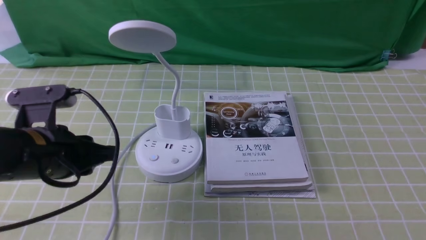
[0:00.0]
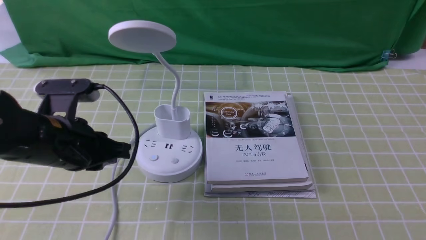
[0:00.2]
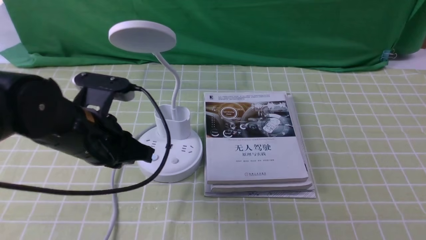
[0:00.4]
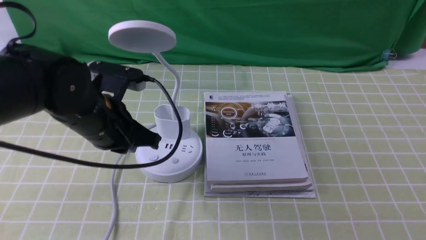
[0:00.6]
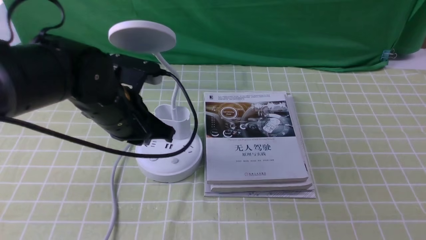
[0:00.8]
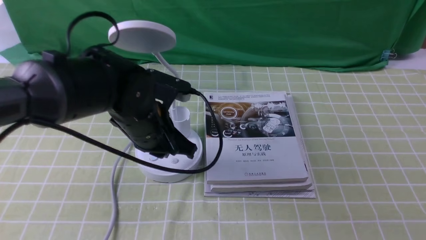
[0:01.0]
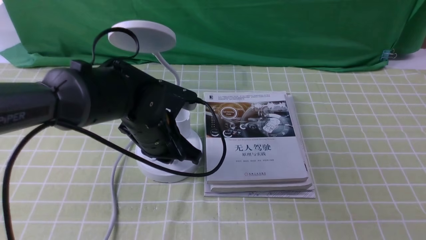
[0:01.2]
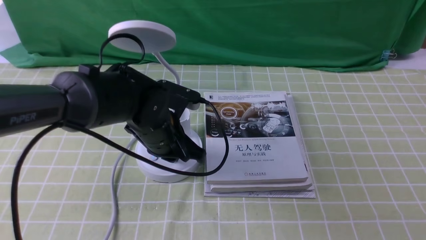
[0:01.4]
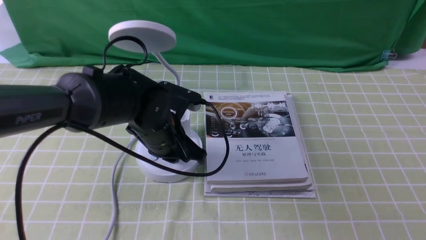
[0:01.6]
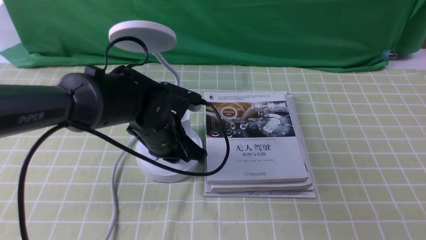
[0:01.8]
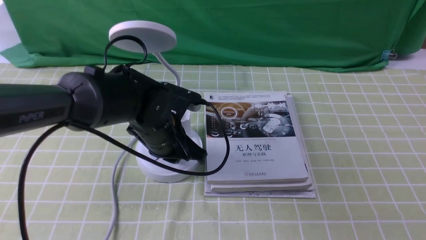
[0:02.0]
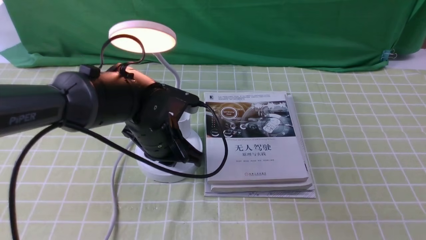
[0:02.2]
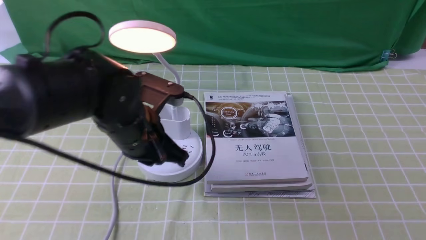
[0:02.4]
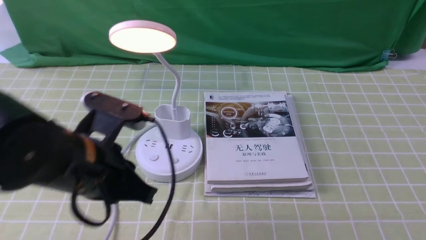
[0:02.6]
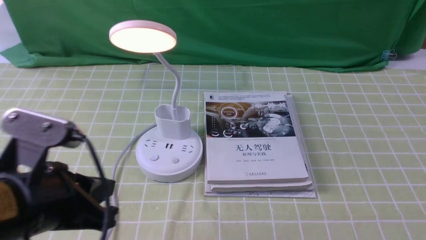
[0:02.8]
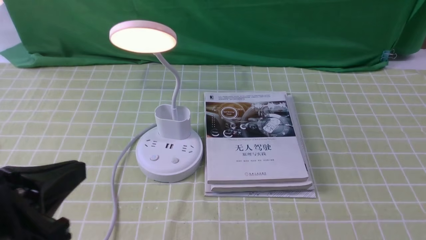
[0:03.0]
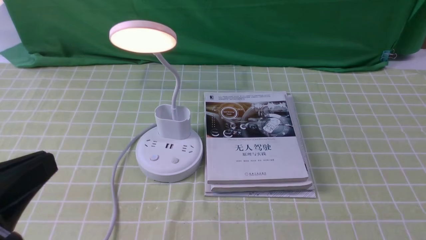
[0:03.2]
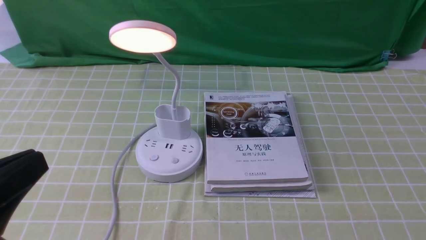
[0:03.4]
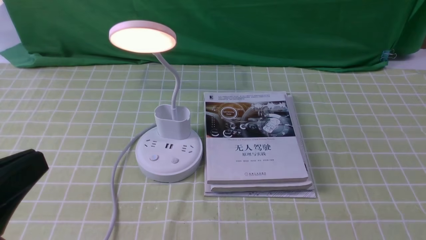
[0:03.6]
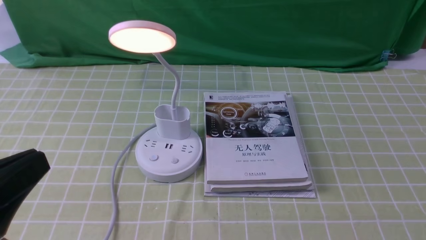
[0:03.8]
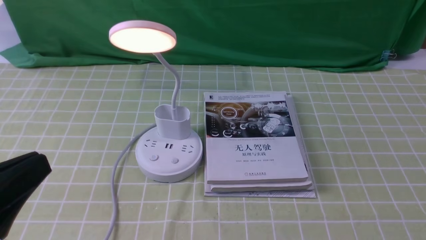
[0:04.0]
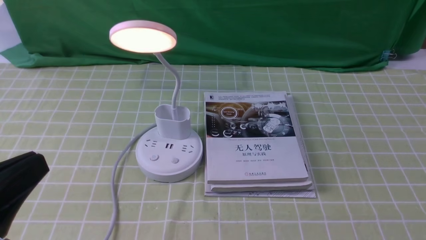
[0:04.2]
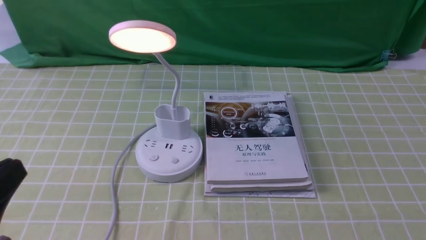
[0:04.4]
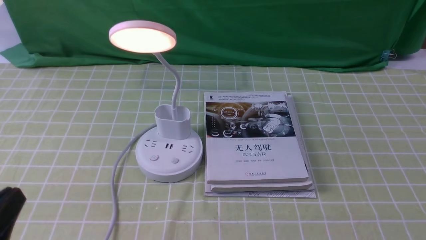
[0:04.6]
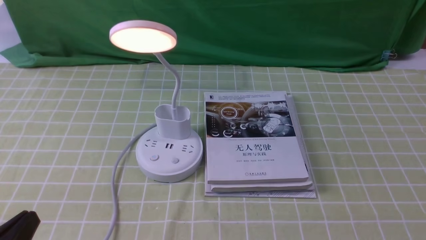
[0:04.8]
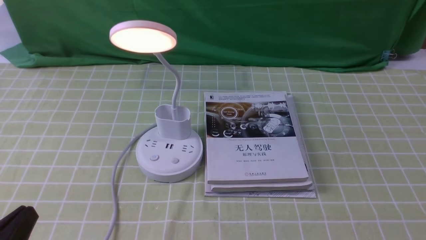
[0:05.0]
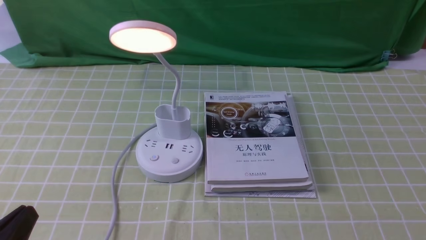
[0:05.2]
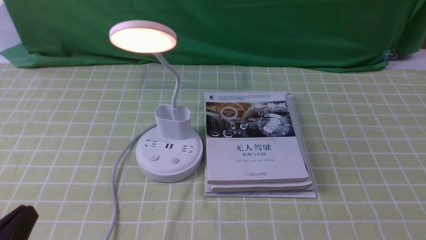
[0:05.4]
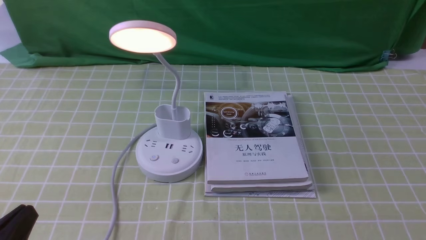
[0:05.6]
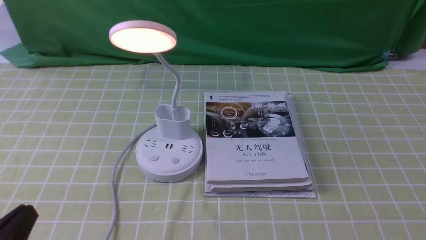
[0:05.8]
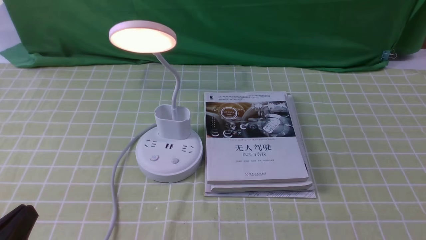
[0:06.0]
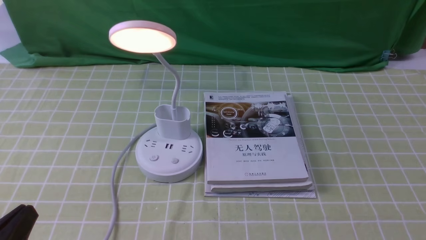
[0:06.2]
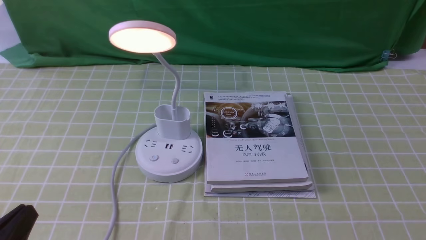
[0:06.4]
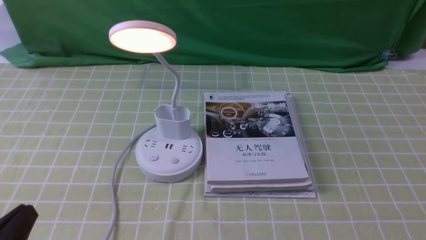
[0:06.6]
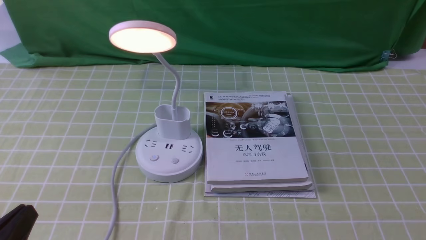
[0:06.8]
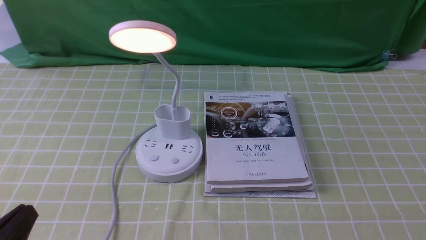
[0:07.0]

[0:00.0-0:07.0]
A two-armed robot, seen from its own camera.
Step, 0:00.0 to 0:02.4: use the left arm to press the button switch on the lamp holder.
0:00.0 to 0:01.4: The left gripper is displaced to the right, forward and downward by approximately 15 cm, and closes up.
0:01.4 to 0:02.8: The left gripper travels backward, to the left and upward by some 25 cm.
0:02.8 to 0:04.2: The left gripper travels backward by about 10 cm.
0:04.2 to 0:05.6: The left gripper shifts roughly 10 cm downward.
0:05.6 to 0:07.0: Both grippers stay put.
